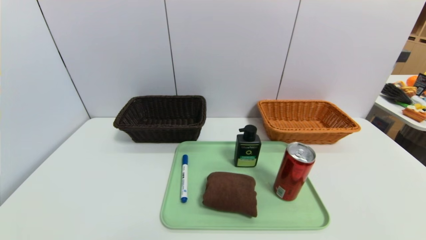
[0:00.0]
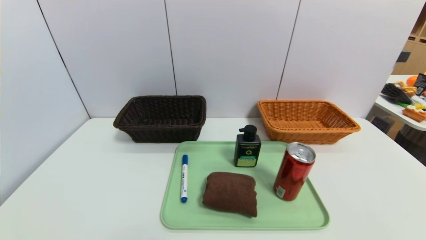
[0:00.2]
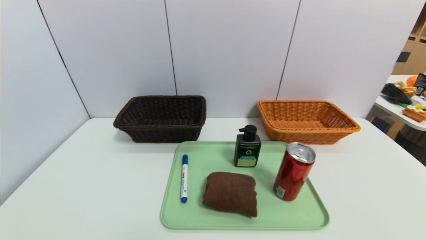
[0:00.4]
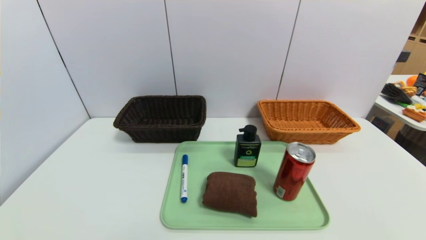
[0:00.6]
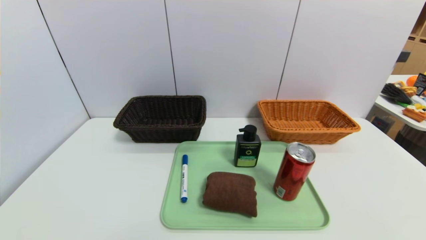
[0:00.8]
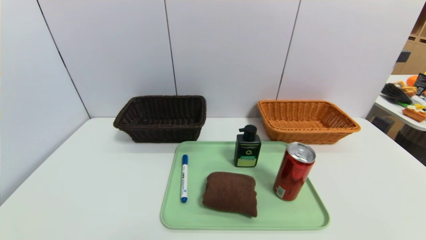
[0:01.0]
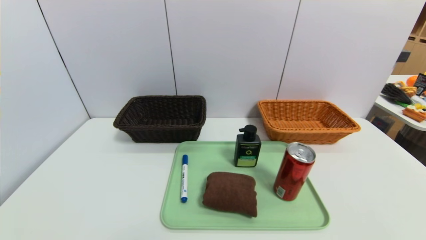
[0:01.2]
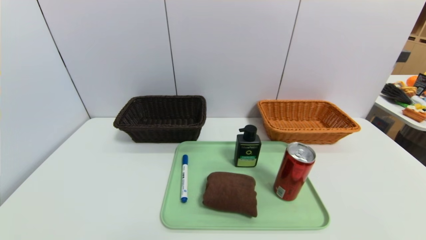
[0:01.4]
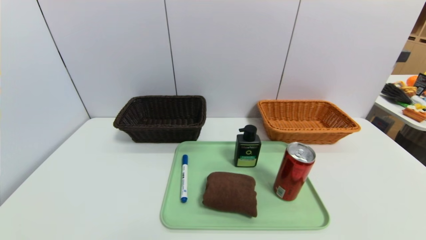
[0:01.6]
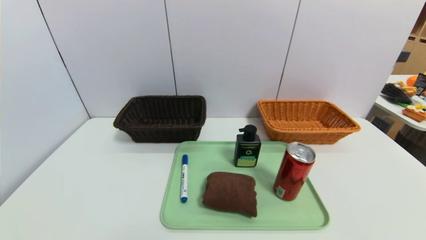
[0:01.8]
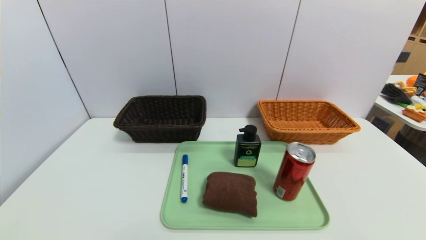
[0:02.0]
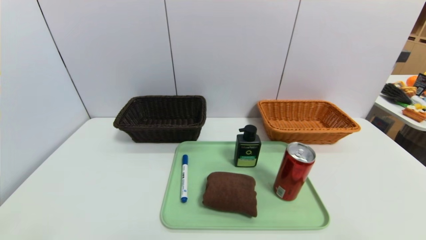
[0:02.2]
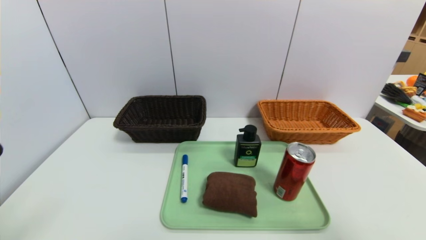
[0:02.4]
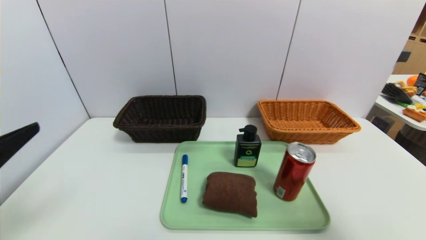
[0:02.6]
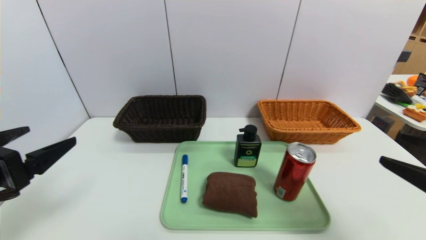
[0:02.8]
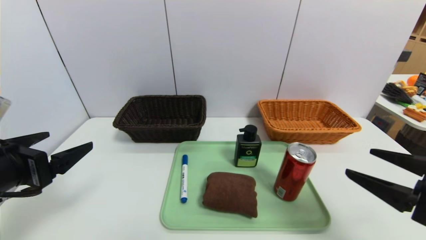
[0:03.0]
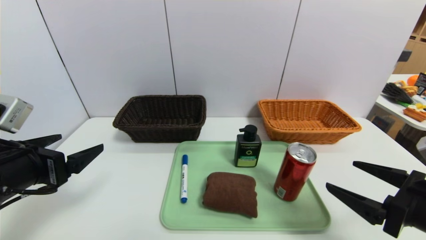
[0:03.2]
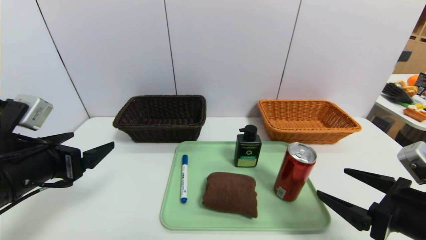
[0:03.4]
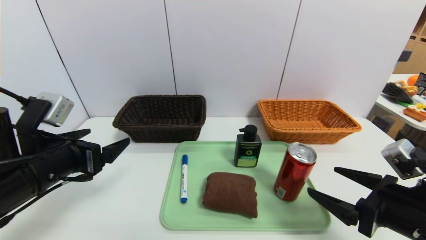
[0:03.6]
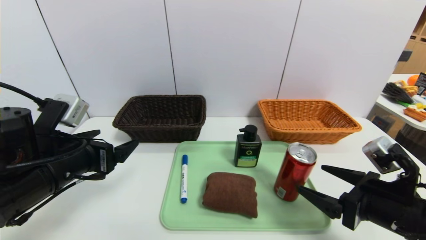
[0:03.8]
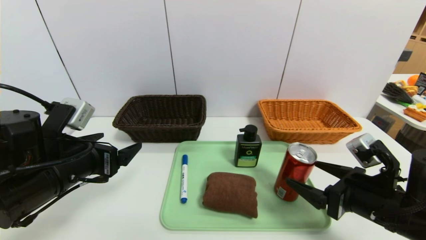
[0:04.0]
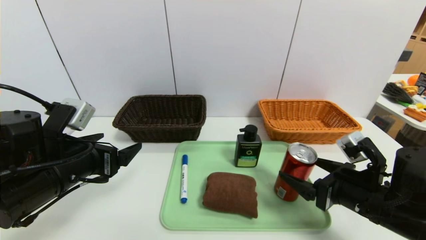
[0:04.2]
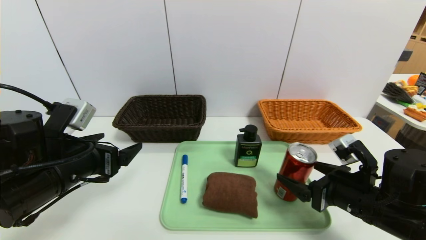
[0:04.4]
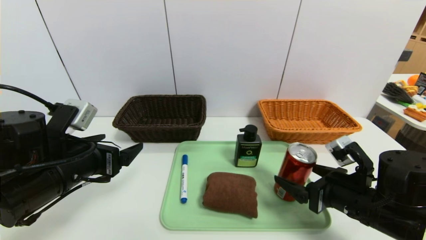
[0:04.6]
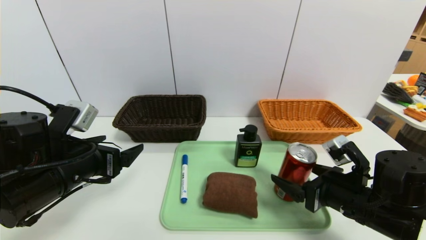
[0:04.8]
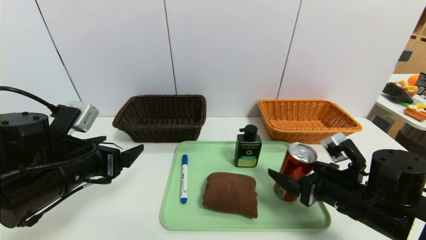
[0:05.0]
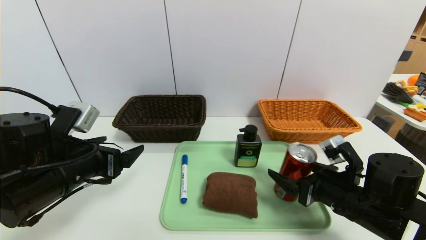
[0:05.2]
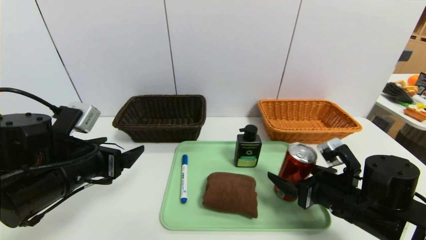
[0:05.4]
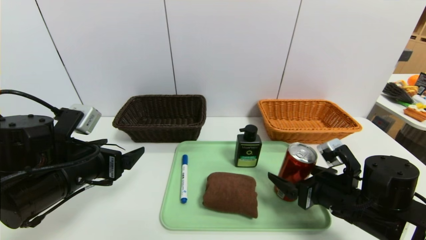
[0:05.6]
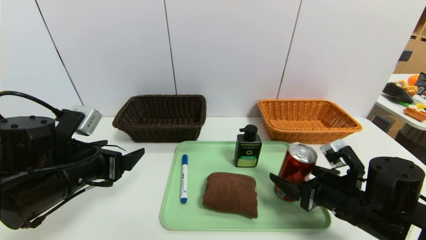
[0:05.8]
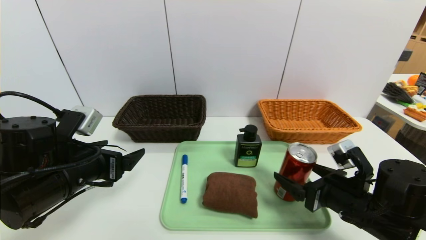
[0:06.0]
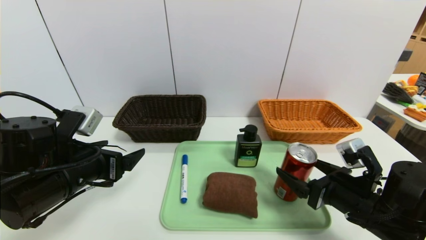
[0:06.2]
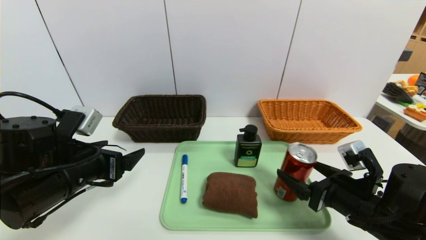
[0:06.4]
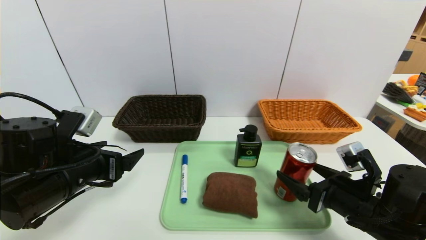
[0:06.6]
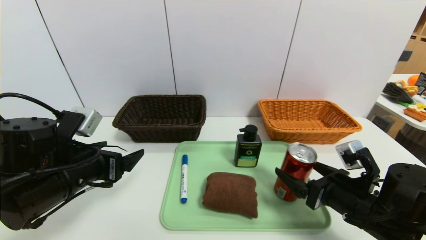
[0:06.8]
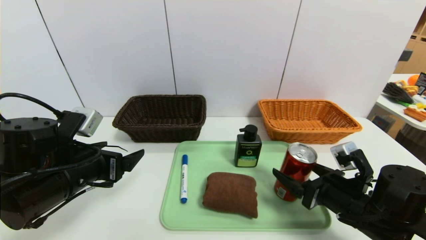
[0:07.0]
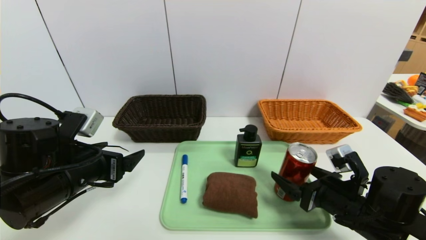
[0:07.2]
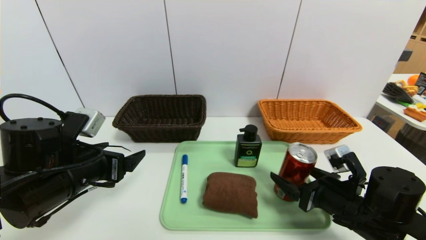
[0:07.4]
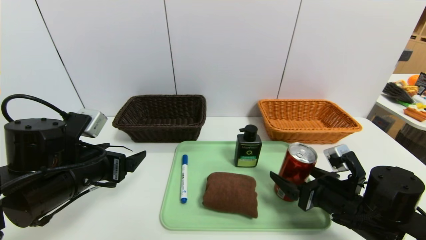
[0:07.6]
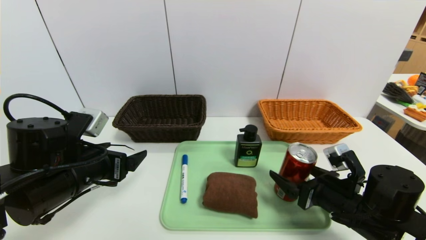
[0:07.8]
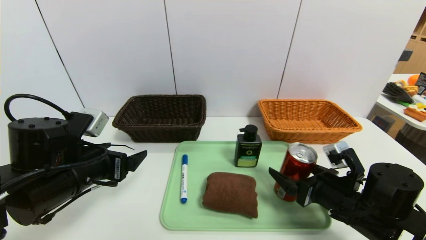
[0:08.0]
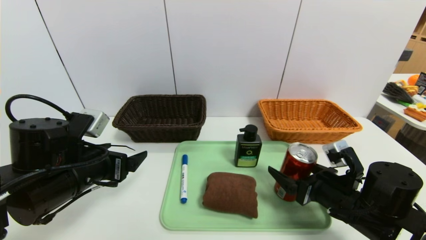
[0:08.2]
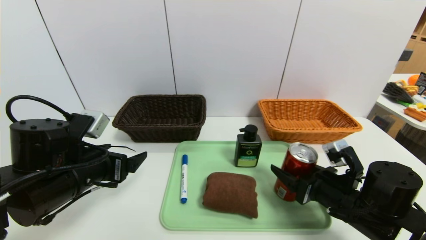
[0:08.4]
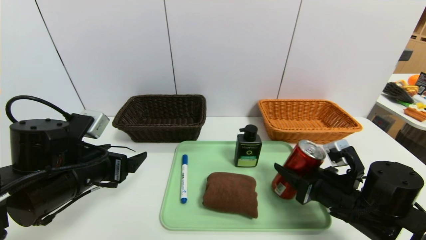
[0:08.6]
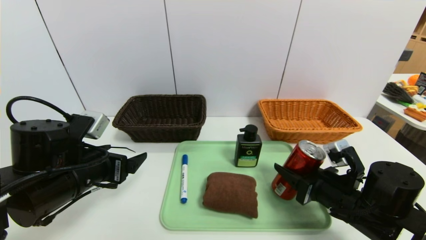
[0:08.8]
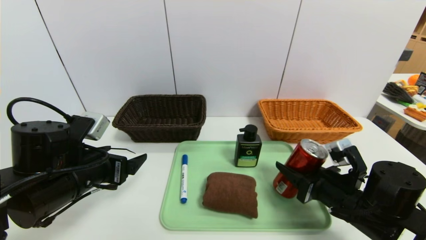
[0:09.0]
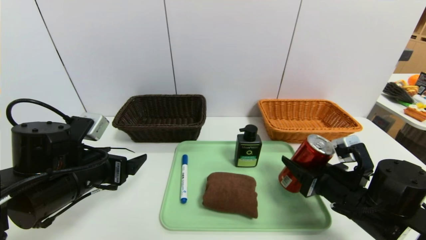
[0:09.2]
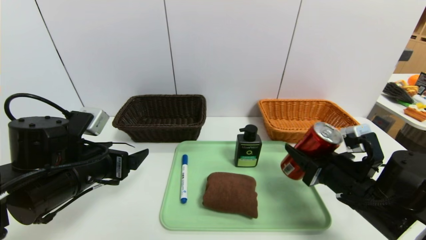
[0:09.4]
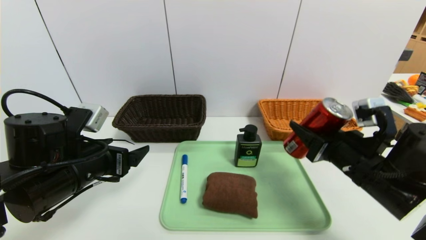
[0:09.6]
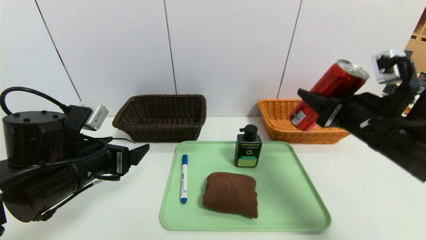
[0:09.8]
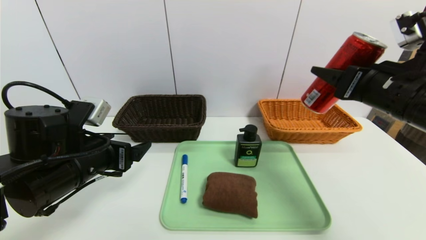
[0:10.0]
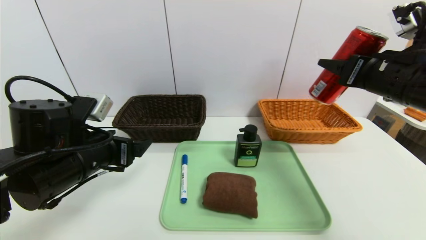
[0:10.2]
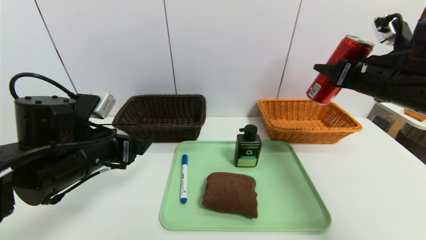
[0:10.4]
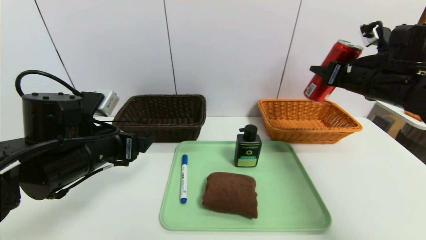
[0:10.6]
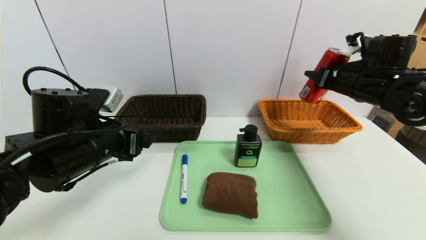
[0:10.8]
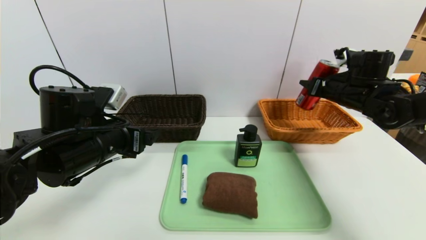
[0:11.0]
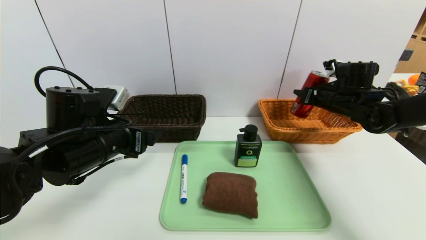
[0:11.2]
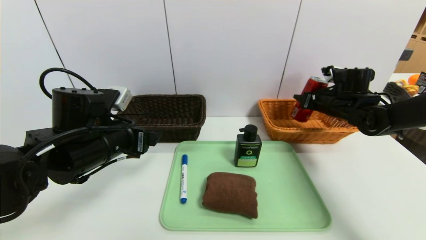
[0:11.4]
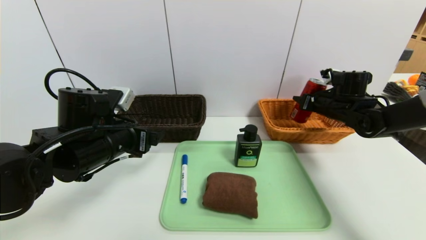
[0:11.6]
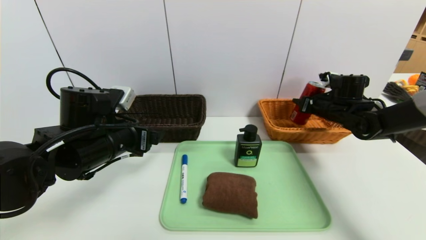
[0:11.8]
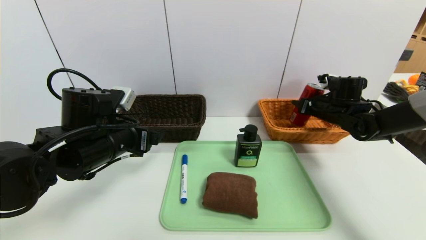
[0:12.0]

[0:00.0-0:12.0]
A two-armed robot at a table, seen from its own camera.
Task of the whole recording: place the food in the right basket with the right gripper, and place the non food items in the left basket with the left gripper.
0:01.6 to 0:03.0: Both grippers move forward and upward, some 20 cm.
0:03.0 to 0:04.4: The right gripper heads downward, forward and to the left, covering approximately 10 cm. The left gripper goes approximately 10 cm to the right and forward.
0:04.4 to 0:07.6: There are only small adjustments of the grippers.
0:07.6 to 0:09.0: The right gripper closes.
0:09.0 to 0:10.4: The right gripper travels upward and forward by some 20 cm.
0:10.4 to 0:12.0: The right gripper travels forward and downward by approximately 20 cm.

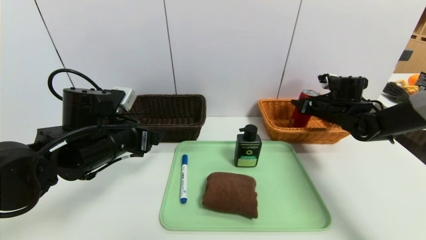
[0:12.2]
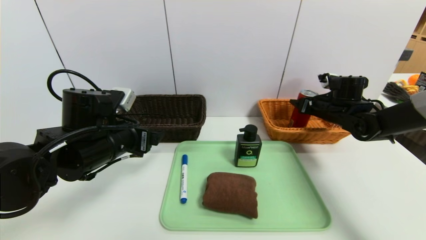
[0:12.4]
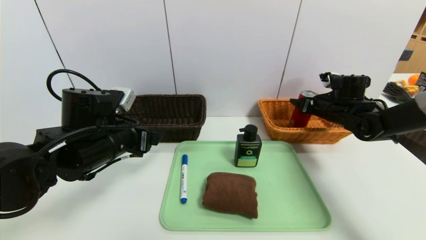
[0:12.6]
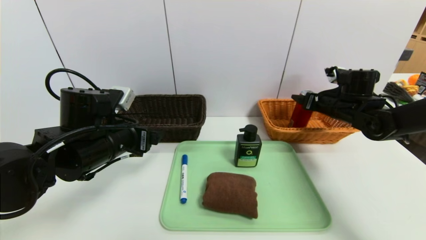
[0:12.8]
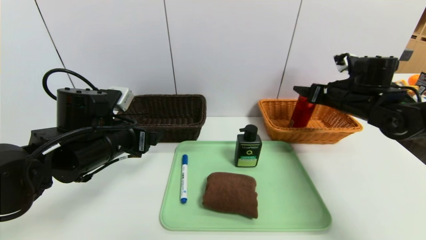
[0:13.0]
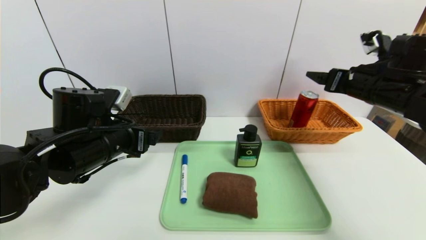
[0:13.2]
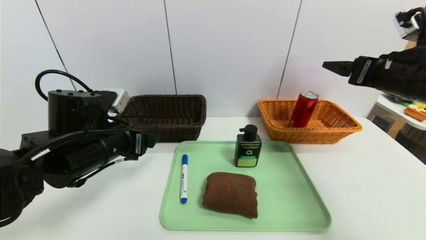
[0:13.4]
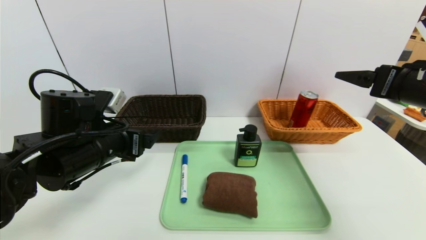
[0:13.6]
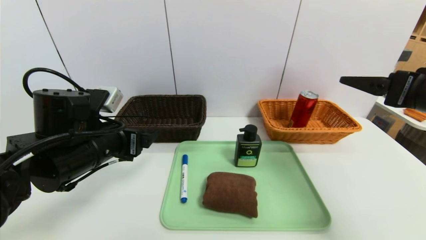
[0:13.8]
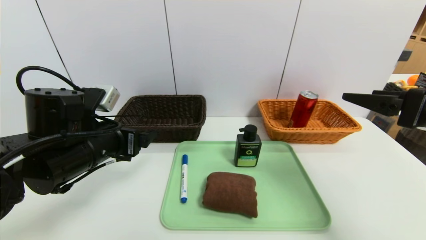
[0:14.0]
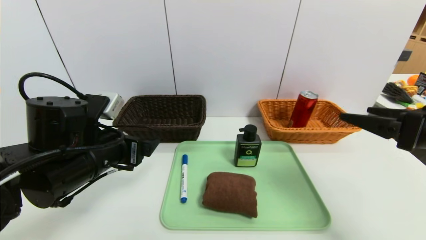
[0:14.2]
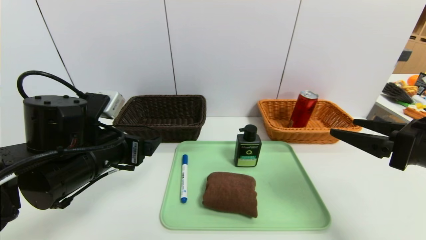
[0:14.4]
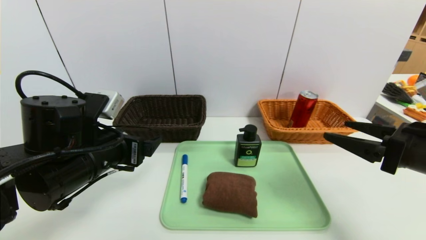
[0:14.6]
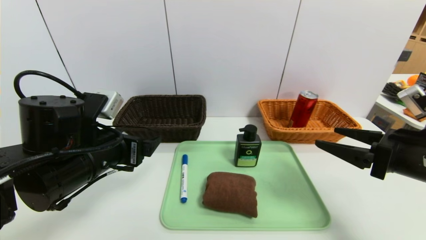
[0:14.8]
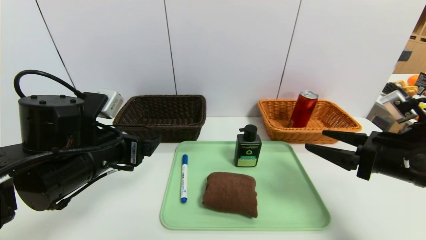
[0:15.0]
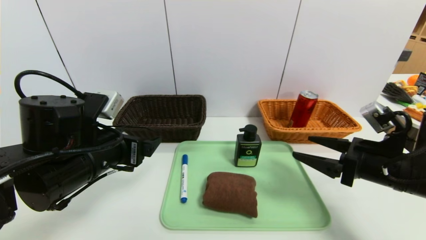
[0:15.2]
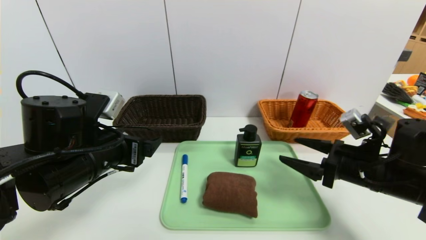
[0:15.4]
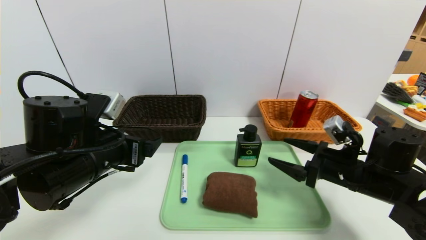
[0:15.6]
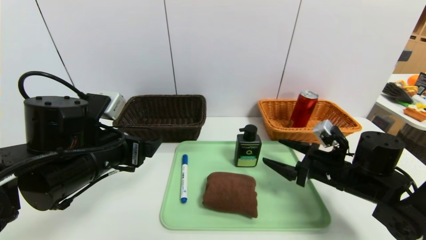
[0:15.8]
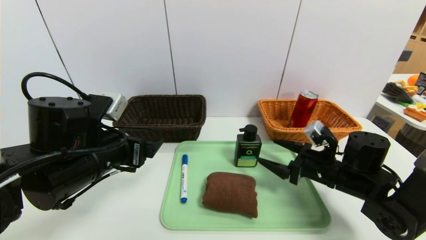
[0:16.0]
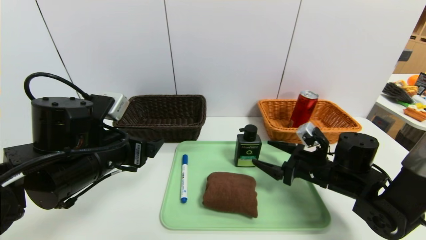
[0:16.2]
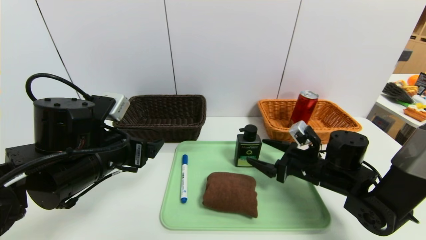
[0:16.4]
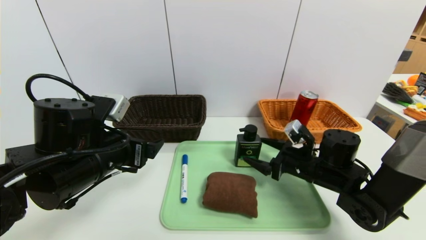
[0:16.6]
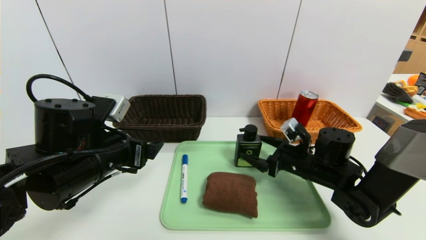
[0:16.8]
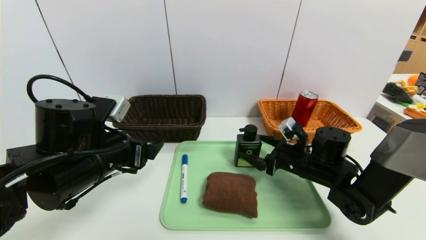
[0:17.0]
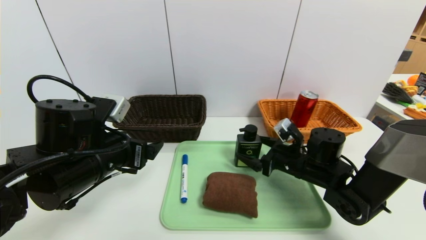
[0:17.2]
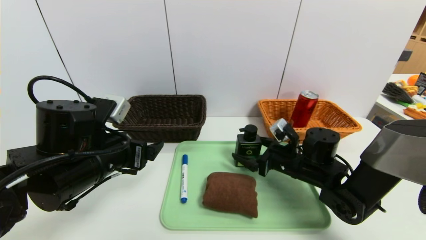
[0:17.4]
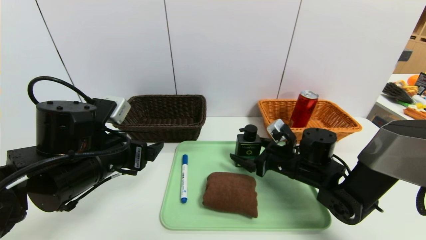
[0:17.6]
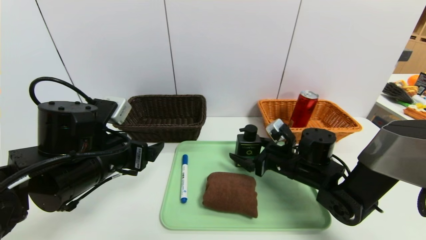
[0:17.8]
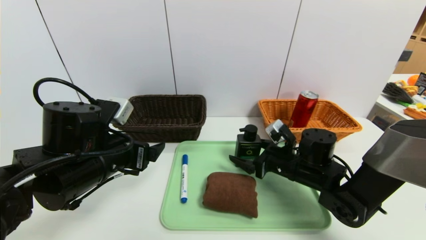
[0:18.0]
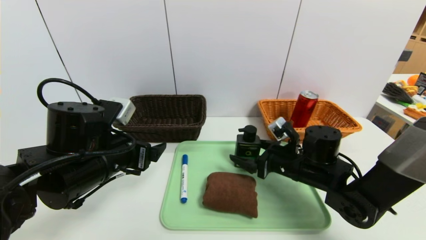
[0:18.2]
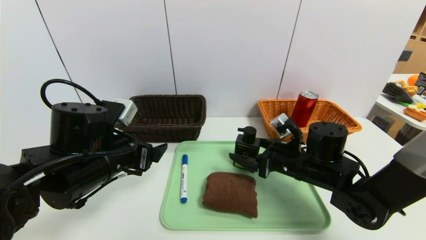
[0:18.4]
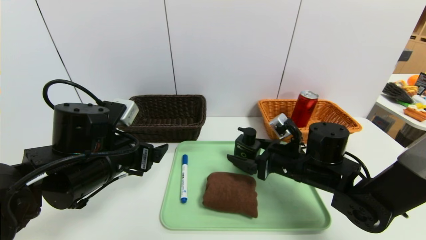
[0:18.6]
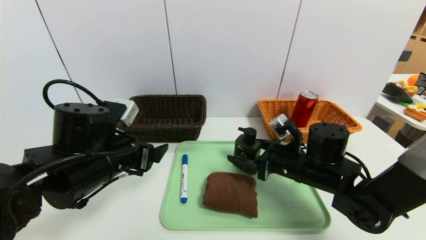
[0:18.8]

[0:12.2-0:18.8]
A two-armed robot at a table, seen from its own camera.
Task of the whole recording: place the food in the right basket with the right gripper, and place the non food items in the left basket with the left gripper.
0:12.2 to 0:13.8: The right gripper travels backward and upward by approximately 25 cm, and opens its fingers.
0:13.8 to 0:15.4: The right gripper travels downward by some 15 cm.
0:15.4 to 0:17.2: The right gripper is displaced forward, to the left and downward by about 15 cm.
0:17.2 to 0:18.8: The right gripper shifts by approximately 5 cm.
